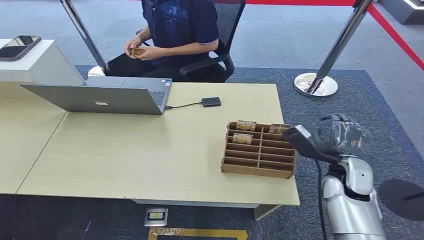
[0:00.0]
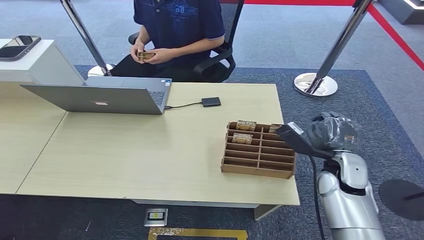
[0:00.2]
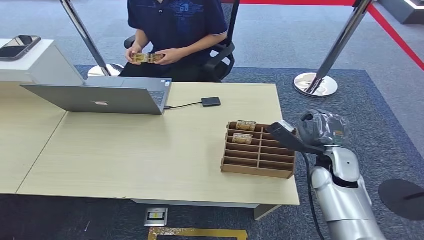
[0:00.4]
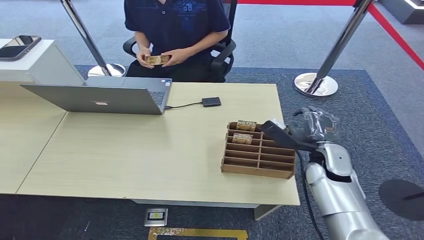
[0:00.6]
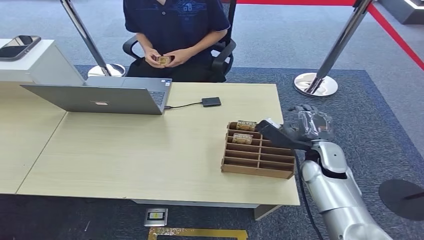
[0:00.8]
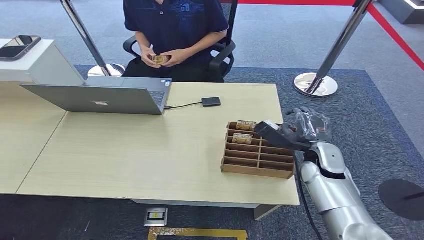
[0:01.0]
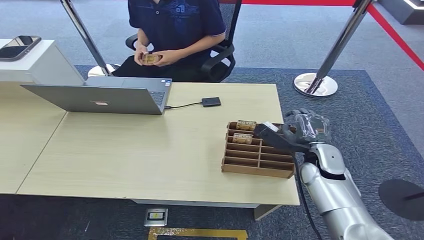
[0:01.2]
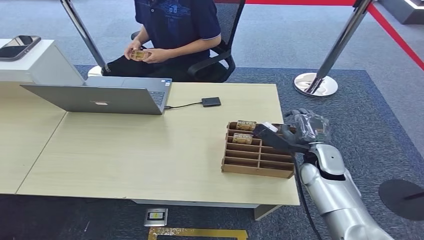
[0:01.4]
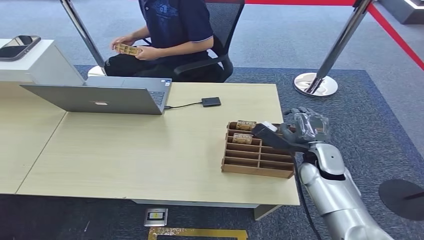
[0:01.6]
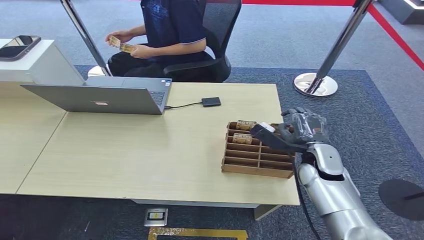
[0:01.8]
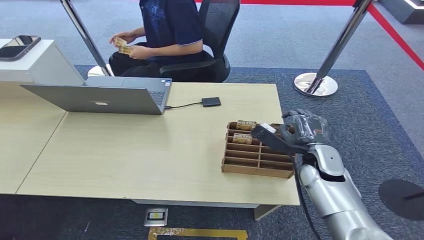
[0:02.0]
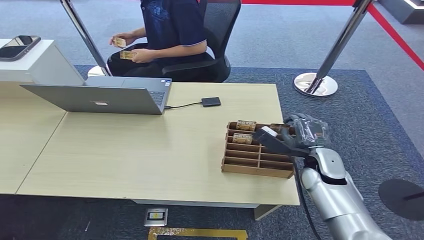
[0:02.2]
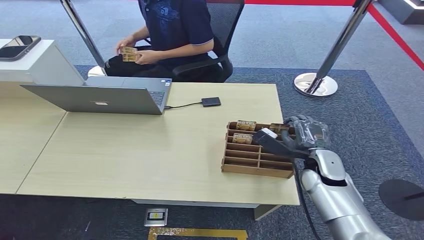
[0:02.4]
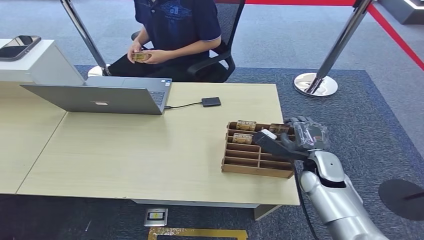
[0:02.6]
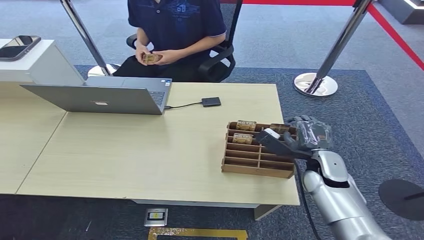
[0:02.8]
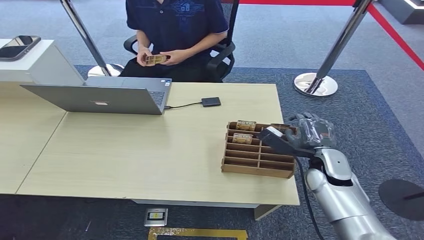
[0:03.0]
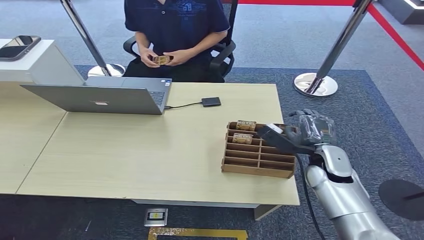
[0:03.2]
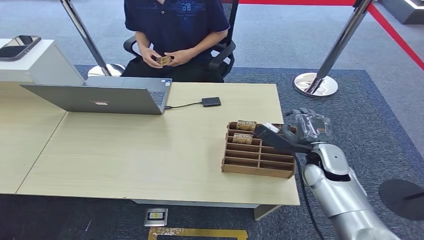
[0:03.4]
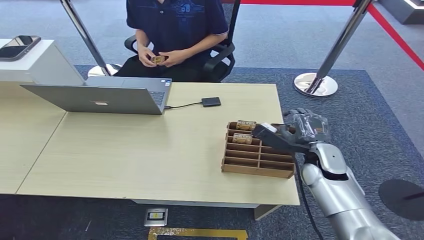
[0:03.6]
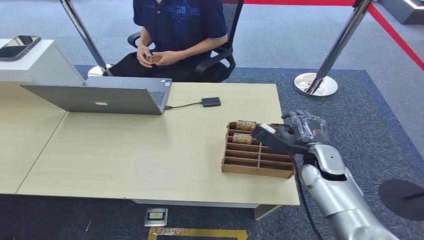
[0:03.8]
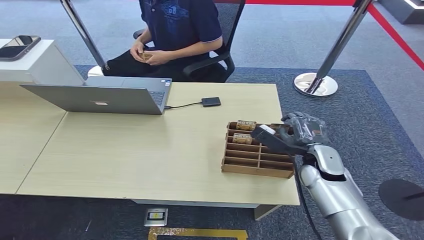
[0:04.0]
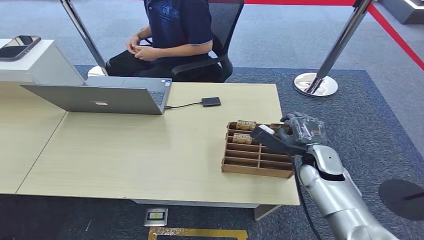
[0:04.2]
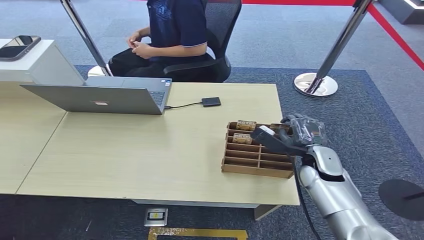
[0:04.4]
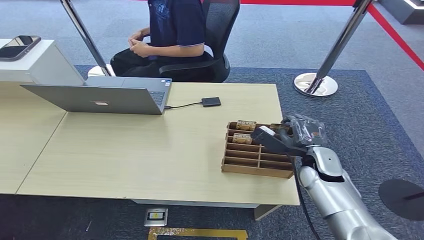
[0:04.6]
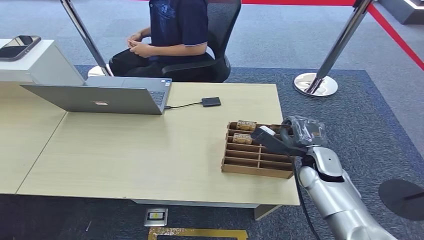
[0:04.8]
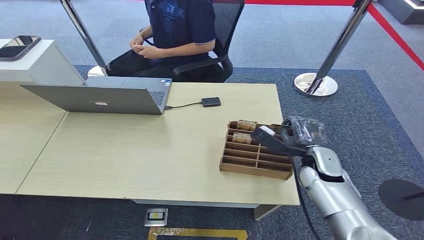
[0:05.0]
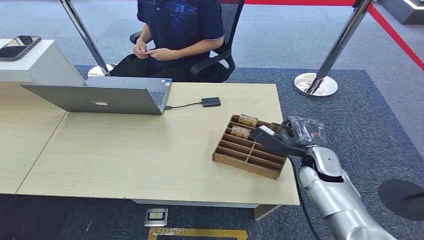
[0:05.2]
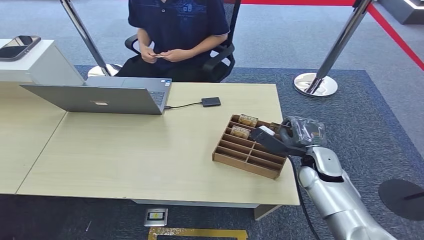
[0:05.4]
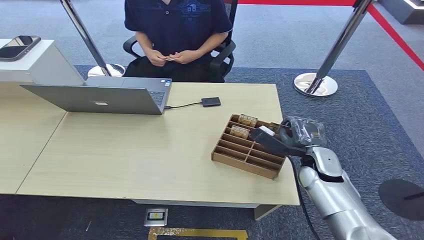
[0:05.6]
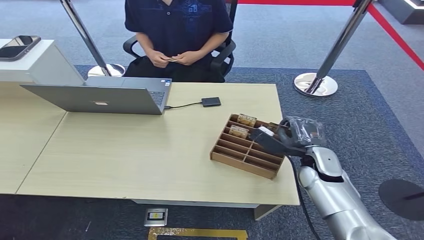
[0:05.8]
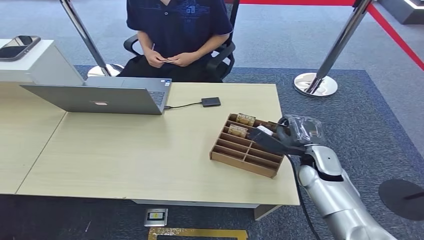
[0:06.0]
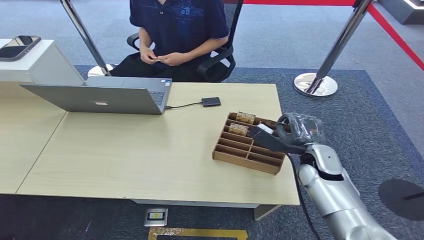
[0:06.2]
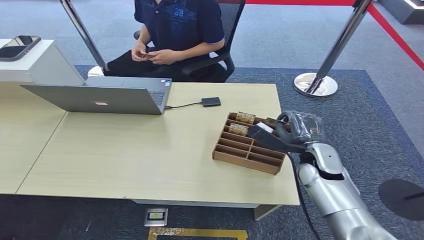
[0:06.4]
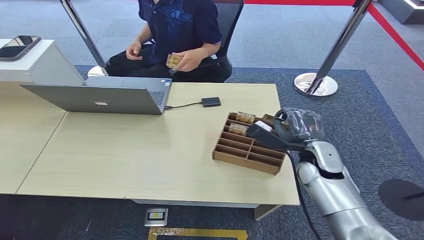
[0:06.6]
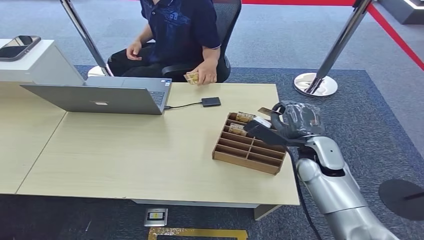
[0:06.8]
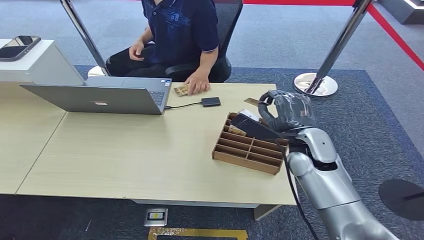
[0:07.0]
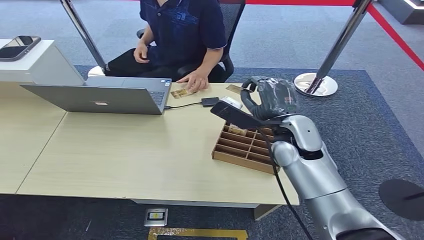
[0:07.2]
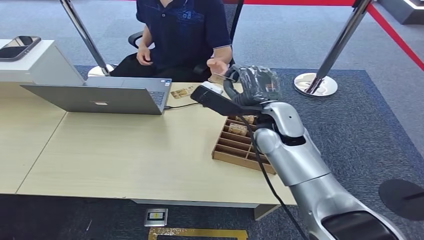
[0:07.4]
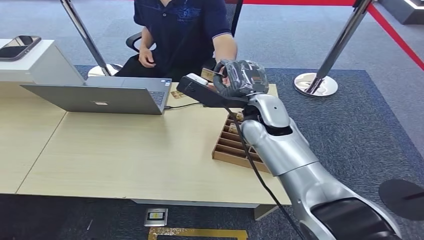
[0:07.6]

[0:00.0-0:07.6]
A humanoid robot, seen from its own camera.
Step, 0:00.0 to 0:07.2: Pick up the room card from the card holder.
Step, 0:07.4 to 0:07.6: Hand the room card to the target.
0:01.6 to 0:04.6: There are only small adjustments of the hands.
0:04.6 to 0:06.0: Both hands stay put.
0:06.0 to 0:07.6: The right hand shifts some 20 cm upward, to the left and forward.
